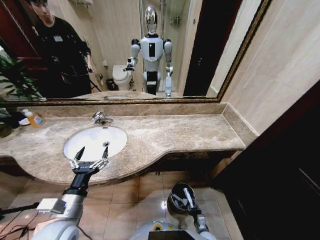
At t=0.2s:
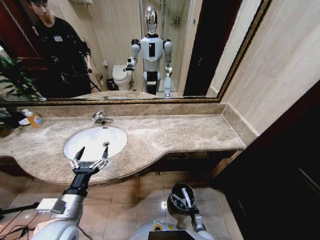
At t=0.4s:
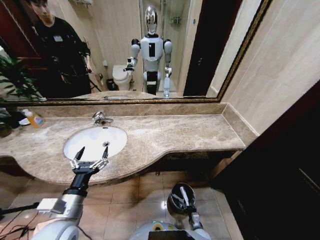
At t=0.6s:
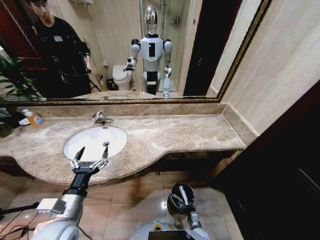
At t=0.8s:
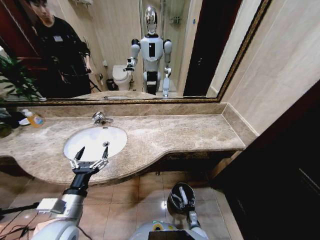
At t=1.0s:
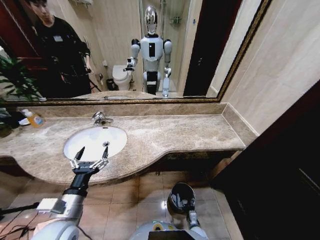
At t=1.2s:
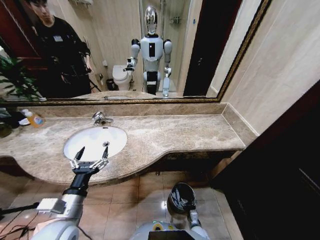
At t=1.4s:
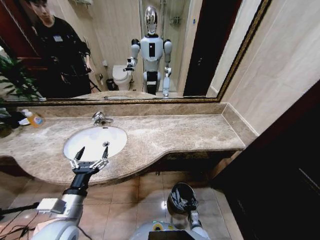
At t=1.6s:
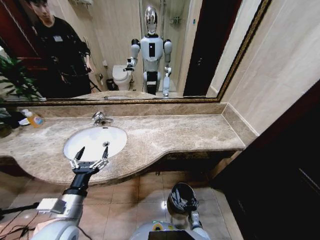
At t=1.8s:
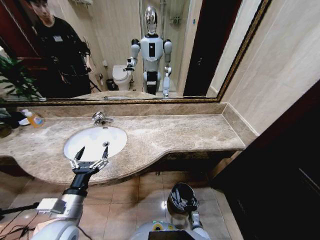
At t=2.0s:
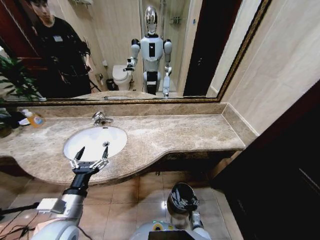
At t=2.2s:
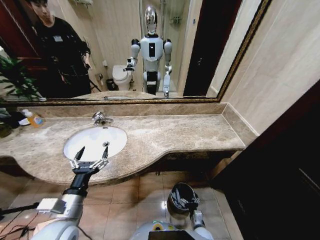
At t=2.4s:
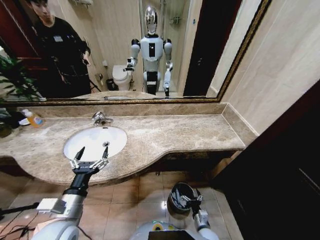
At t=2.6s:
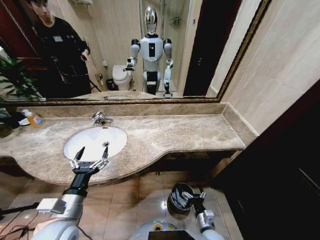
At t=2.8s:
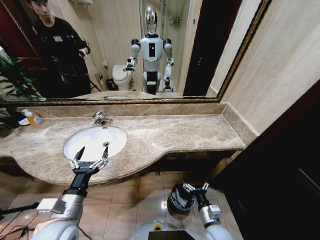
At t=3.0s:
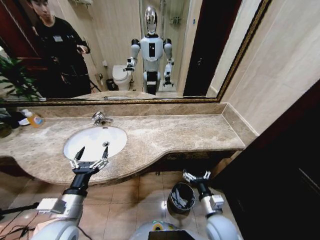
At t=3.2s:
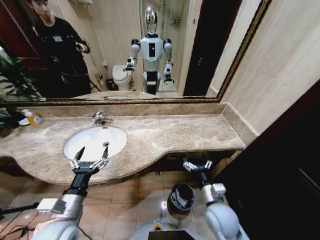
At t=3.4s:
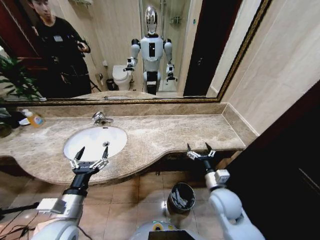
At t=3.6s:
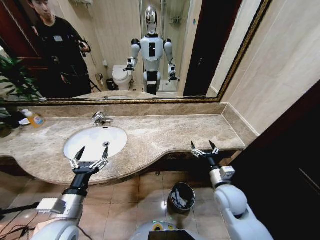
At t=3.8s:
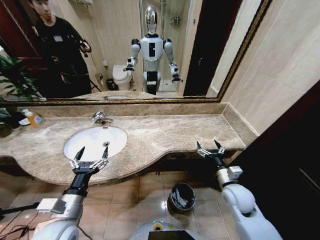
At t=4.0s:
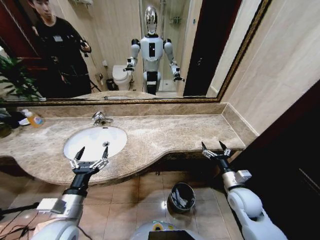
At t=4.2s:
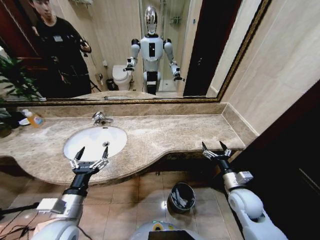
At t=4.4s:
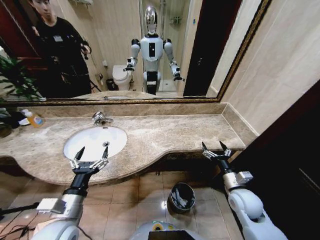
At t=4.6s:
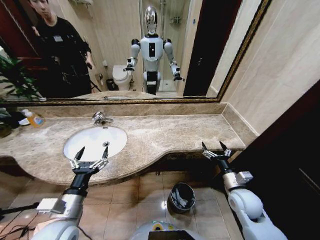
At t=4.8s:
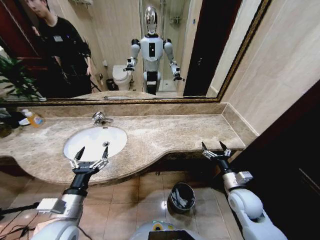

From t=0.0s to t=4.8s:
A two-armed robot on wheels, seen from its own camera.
Task of the whole recording: Pick up the trash from the sink and place it in the trash bin.
From t=0.0s to t=1.6s: The right gripper opens.
From t=1.6s to t=3.2s: The right gripper travels upward by roughly 35 cm.
From t=3.2s to t=4.8s: The right gripper travels to the right by about 10 cm.
